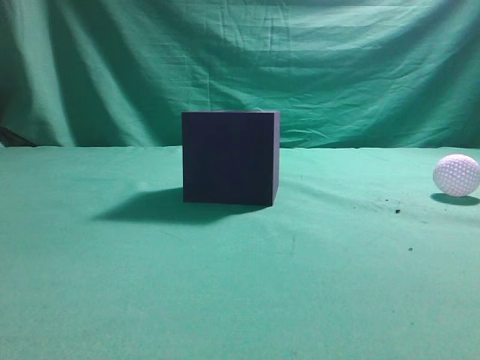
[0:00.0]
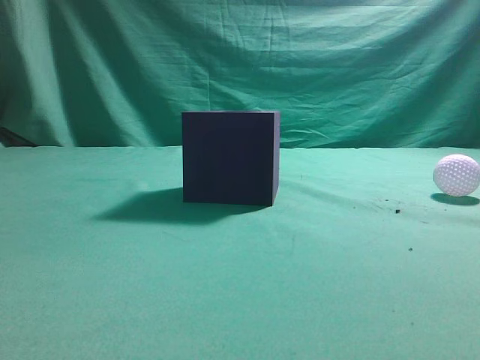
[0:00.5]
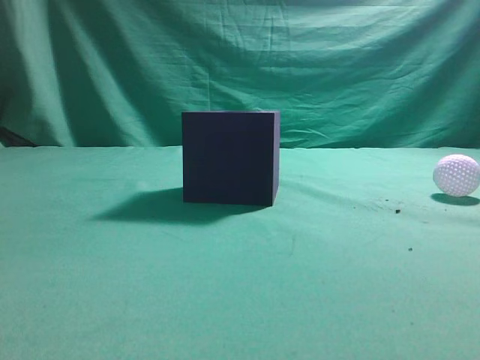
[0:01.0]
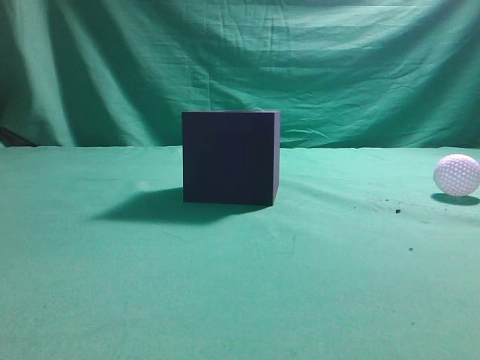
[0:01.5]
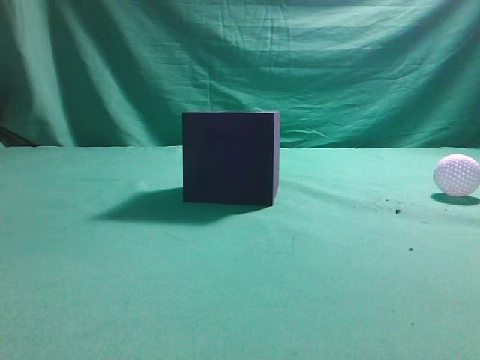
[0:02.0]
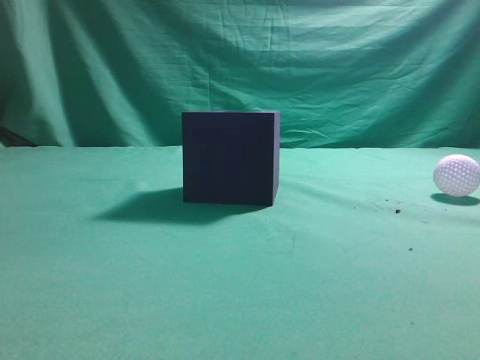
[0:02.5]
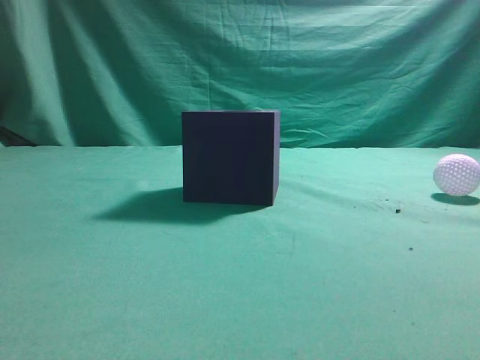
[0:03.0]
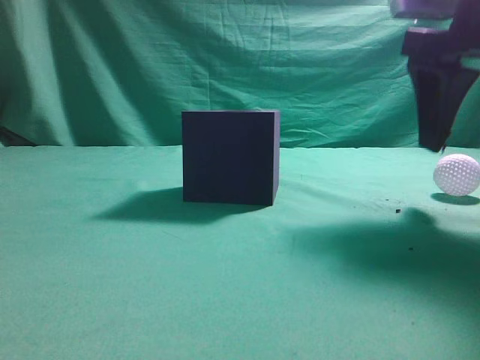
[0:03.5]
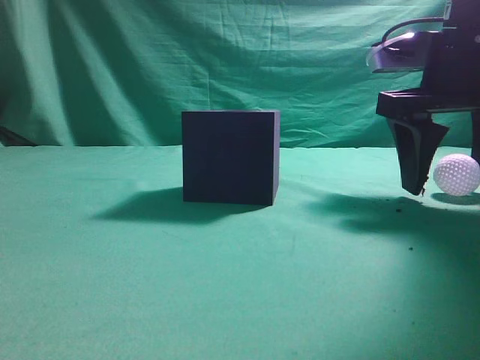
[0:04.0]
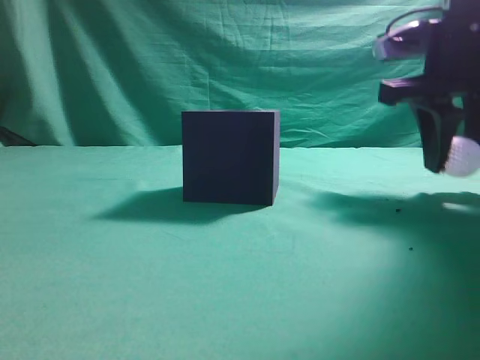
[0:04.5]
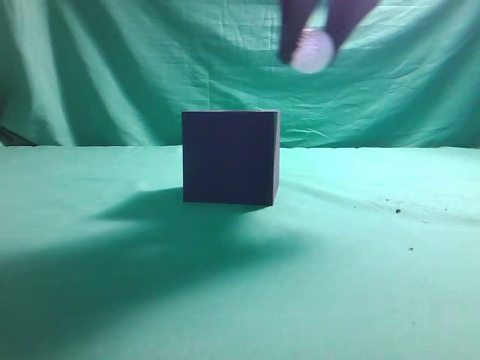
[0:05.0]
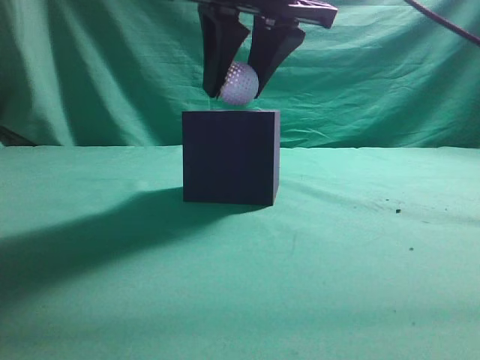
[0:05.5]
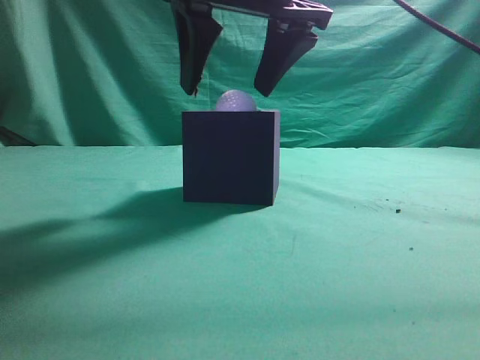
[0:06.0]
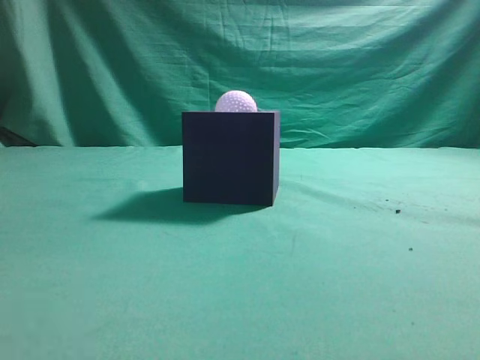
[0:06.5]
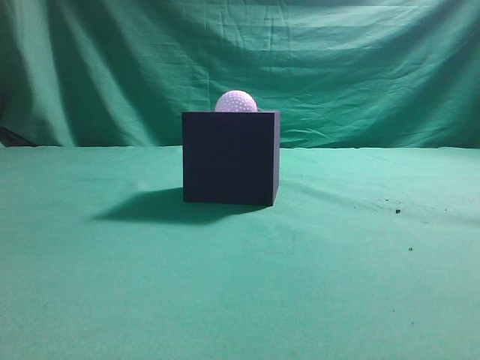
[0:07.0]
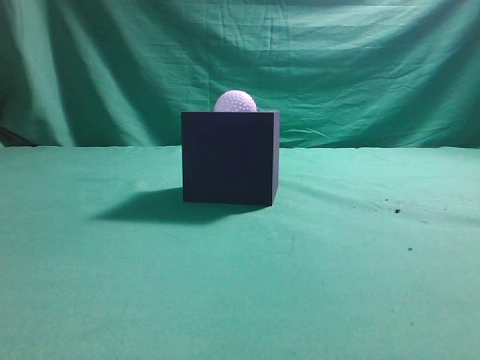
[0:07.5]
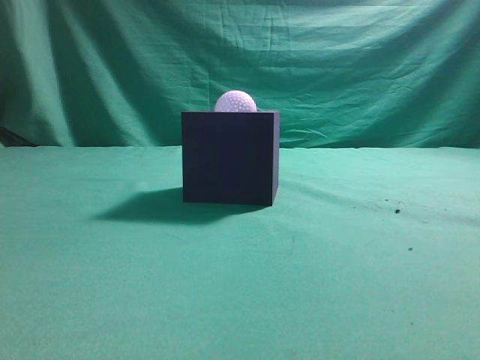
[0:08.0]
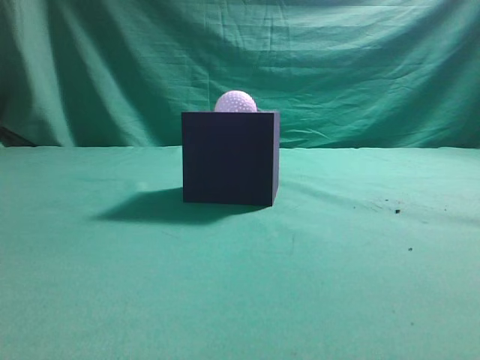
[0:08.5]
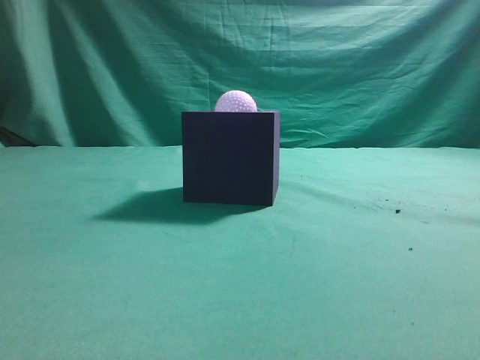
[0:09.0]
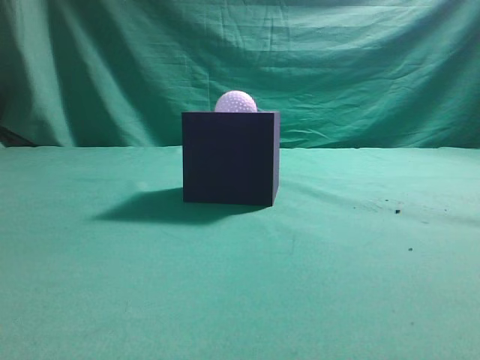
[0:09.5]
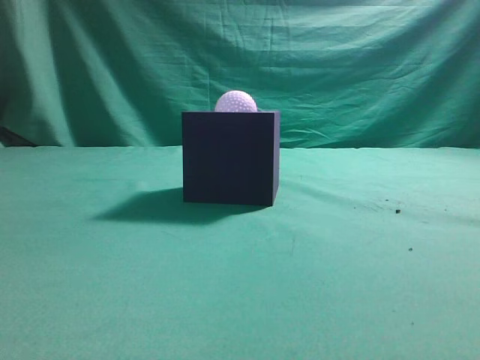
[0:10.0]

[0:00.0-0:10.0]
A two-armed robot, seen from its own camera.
Task of the whole recording: Pick up the ball and place it in the circular groove above the cube.
Step, 0:00.0 to 0:04.5: Grasp the sphere on the table.
Step, 0:05.0 to 0:06.0: Place the sphere into the sphere-shaped recess.
0:02.0 to 0:04.0: The right gripper moves forward, some 25 cm, and opens its fingers.
0:04.0 to 0:06.0: The right gripper heads to the left and upward, covering some 20 cm, and closes, then reopens.
0:06.0 to 0:08.0: The right gripper goes roughly 35 cm backward, to the right and upward, and closes its fingers.
